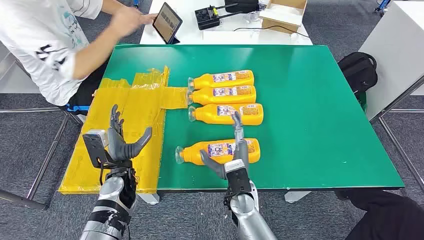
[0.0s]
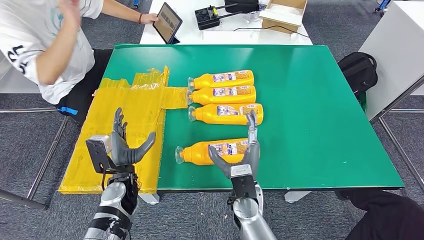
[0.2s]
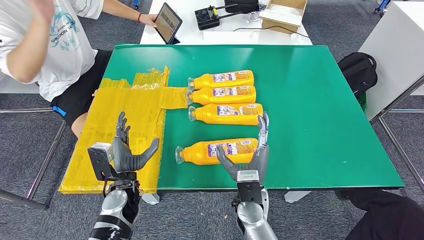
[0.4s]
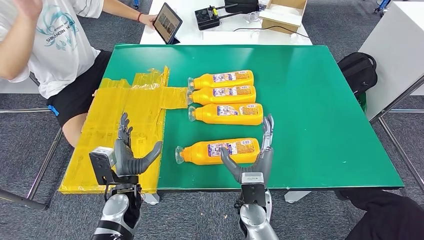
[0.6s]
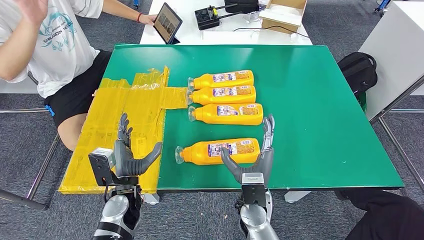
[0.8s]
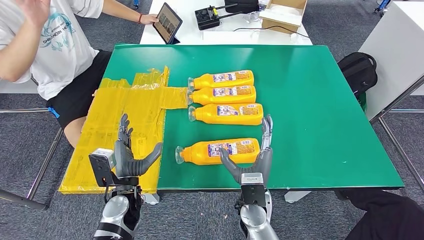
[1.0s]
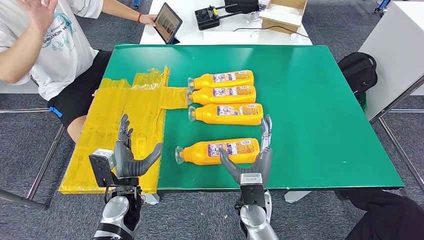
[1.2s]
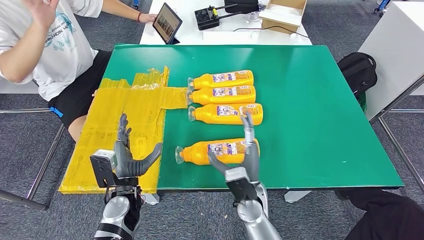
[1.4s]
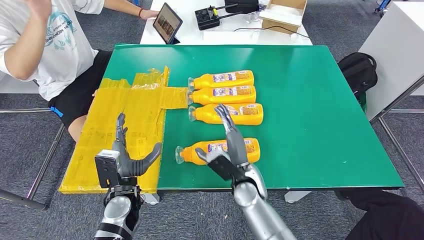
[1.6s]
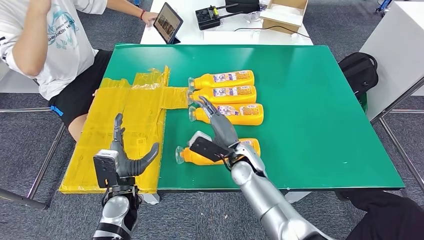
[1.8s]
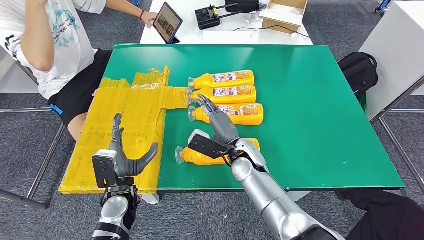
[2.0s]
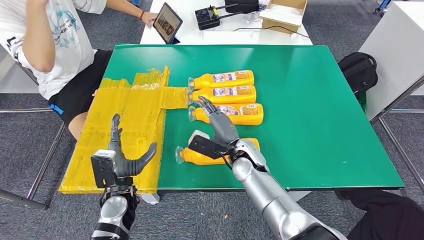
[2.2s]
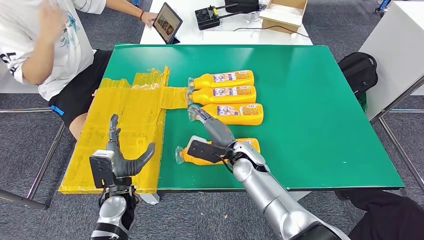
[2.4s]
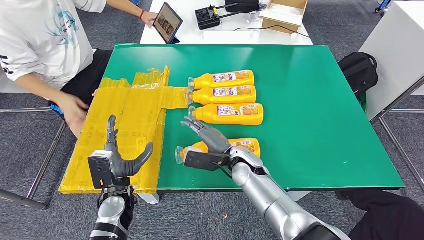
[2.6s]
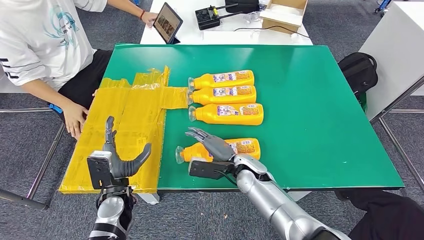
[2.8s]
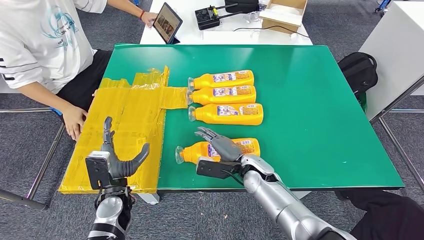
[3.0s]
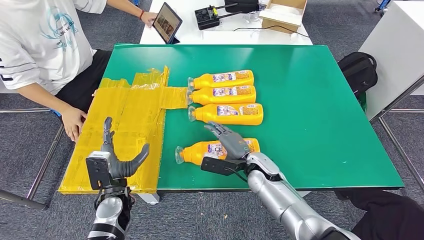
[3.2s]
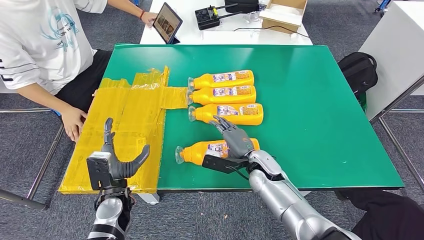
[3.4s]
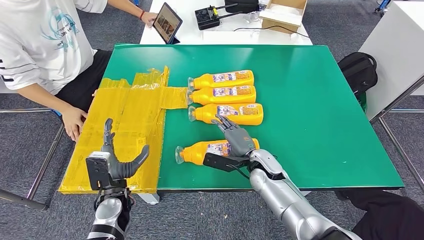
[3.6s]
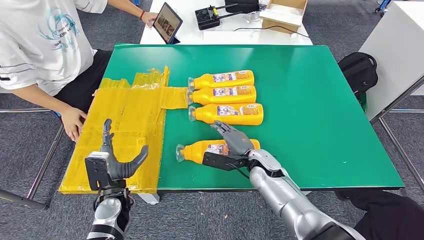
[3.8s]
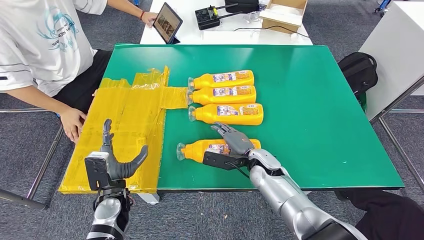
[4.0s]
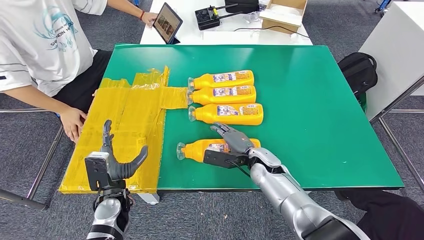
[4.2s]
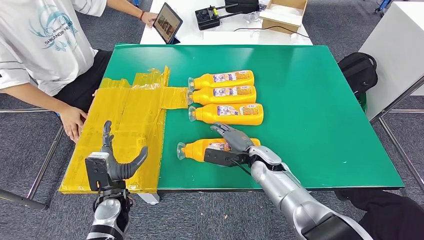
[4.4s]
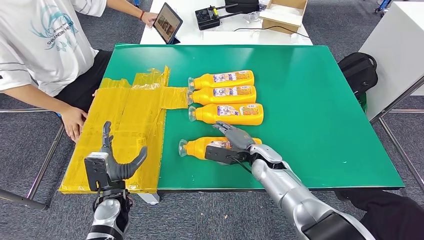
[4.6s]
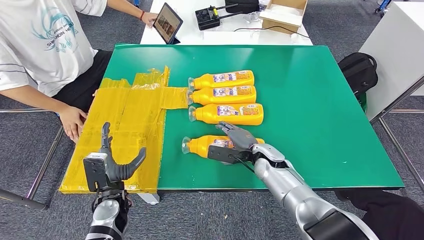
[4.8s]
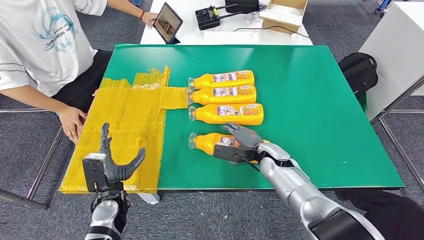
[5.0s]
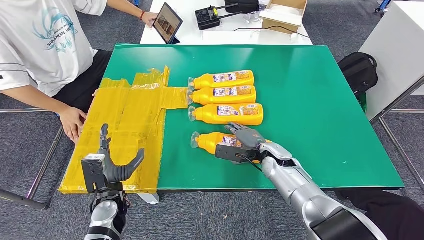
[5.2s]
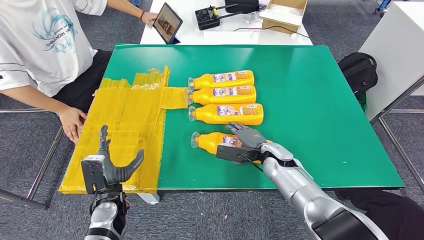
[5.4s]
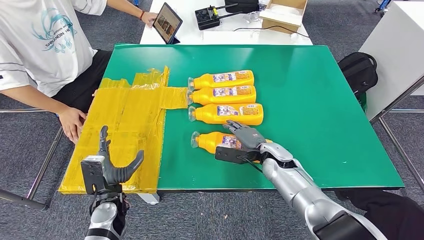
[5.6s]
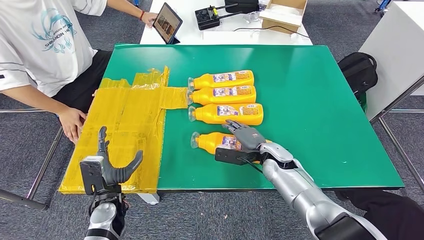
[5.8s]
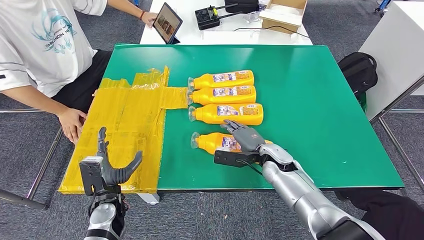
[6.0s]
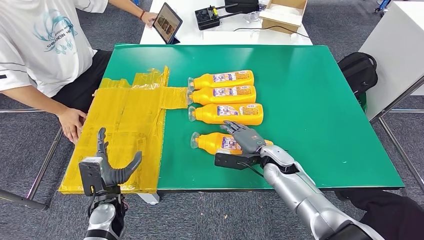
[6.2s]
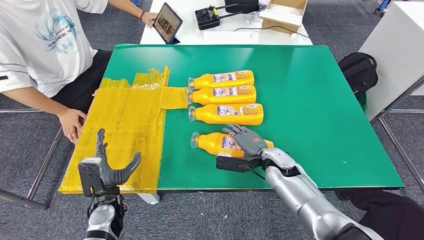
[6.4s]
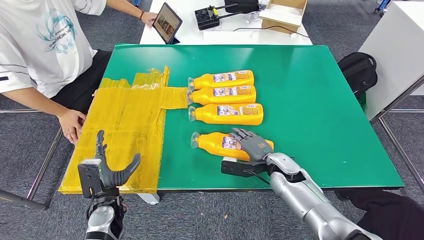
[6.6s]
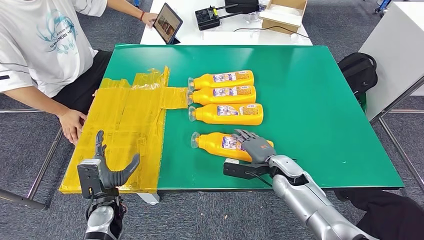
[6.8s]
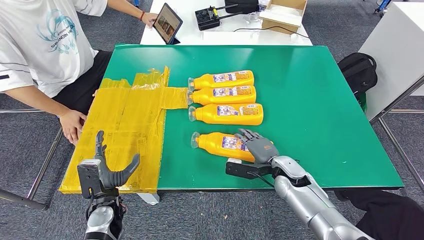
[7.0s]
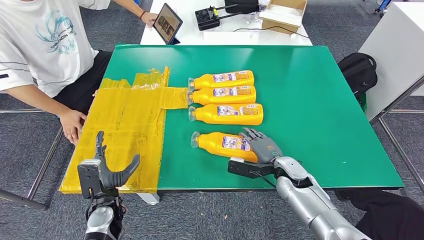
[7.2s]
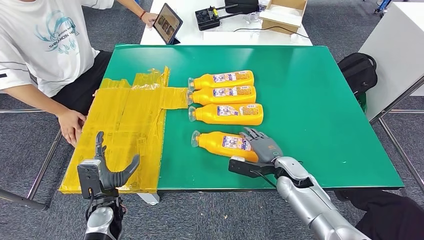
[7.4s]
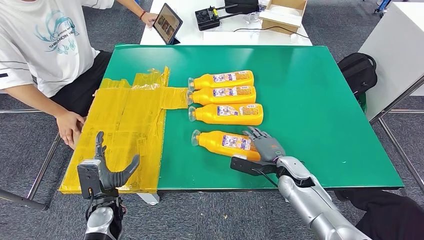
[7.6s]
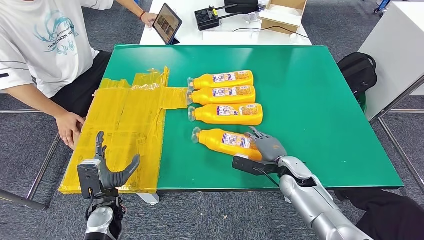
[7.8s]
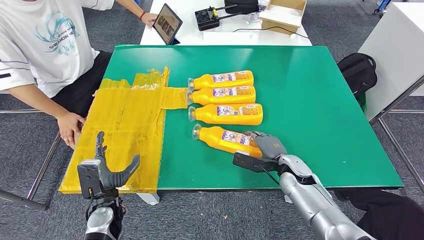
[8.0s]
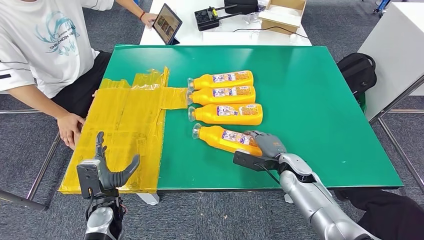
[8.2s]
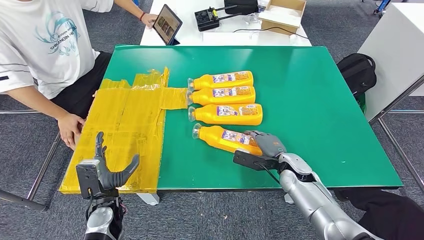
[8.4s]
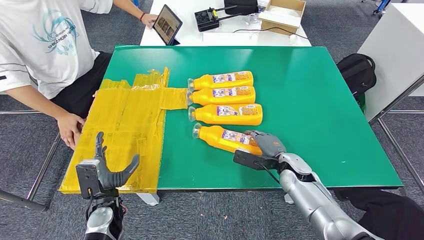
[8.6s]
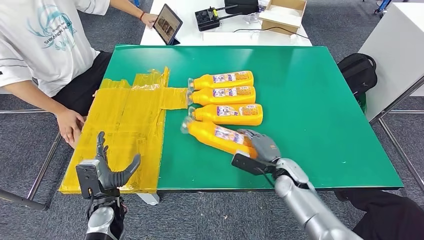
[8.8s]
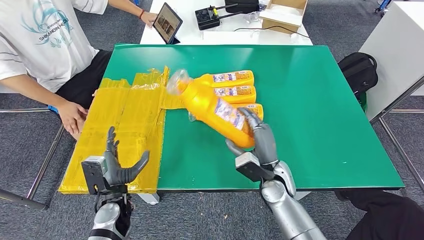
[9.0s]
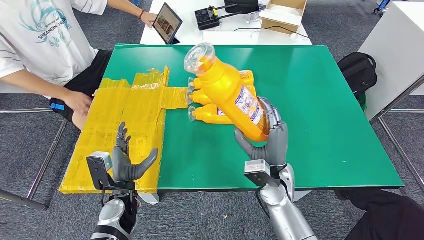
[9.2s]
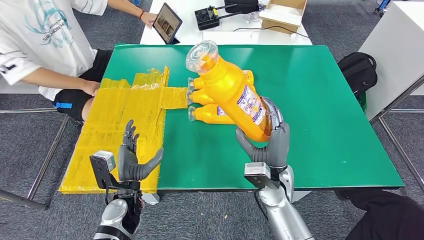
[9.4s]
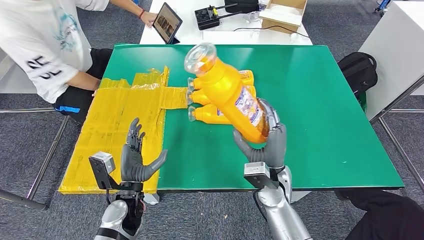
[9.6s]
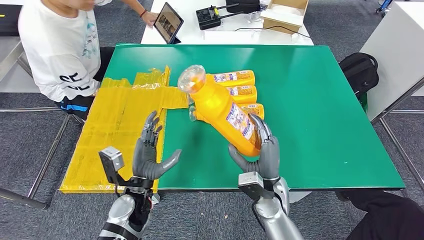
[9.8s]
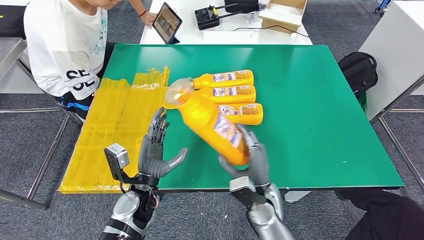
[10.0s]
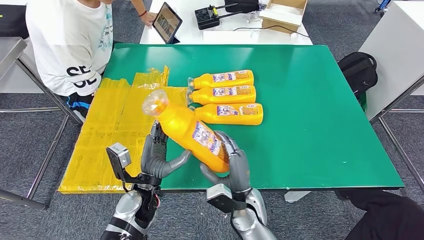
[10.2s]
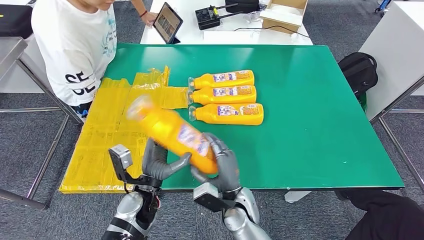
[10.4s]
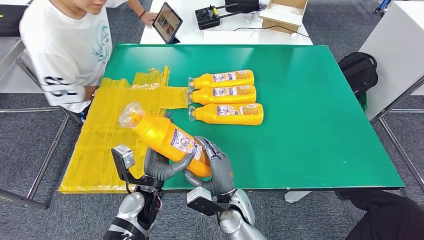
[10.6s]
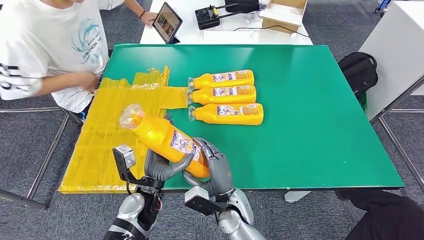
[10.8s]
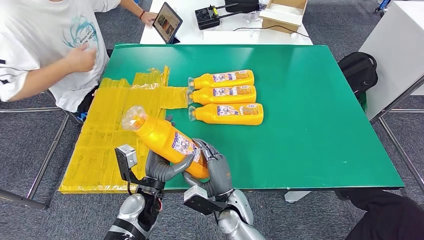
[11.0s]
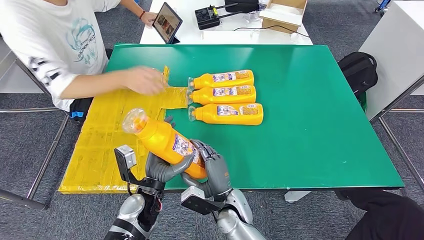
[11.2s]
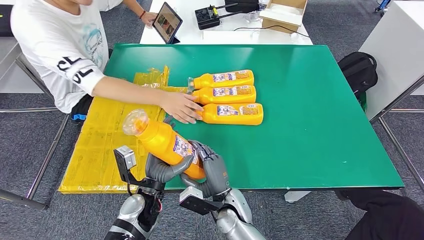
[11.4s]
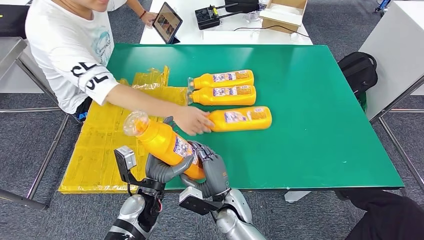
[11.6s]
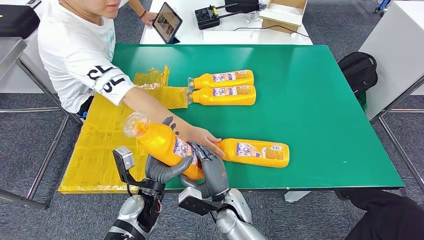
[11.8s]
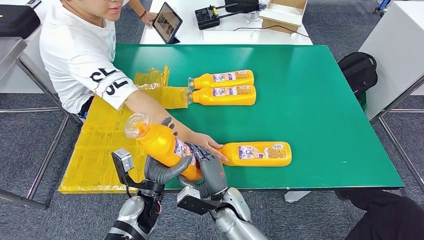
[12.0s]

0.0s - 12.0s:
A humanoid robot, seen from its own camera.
Step, 0.0s - 9.0s: Take the fast-moving consumer goods bottle from the table.
1.6s - 3.0s: The right hand changes place by roughly 5 cm.
3.0s - 4.4s: The hands move only a little.
4.4s - 6.0s: The hands make only small movements.
6.0s - 7.6s: The right hand changes place by approximately 5 cm.
7.6s - 9.0s: The right hand travels to the left by about 5 cm.
10.4s - 12.0s: The hands move only a little.

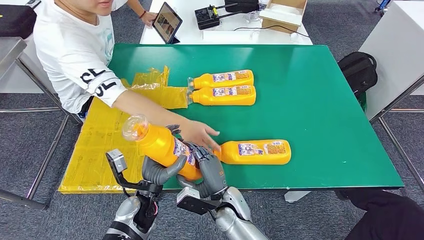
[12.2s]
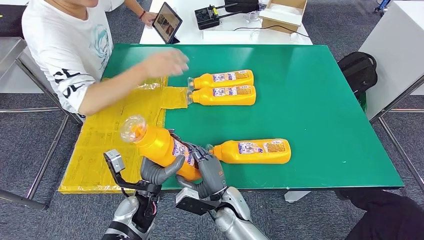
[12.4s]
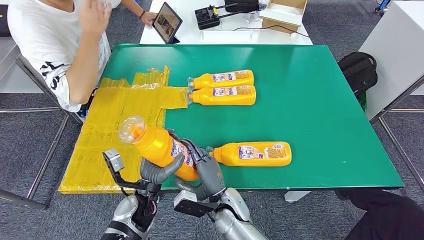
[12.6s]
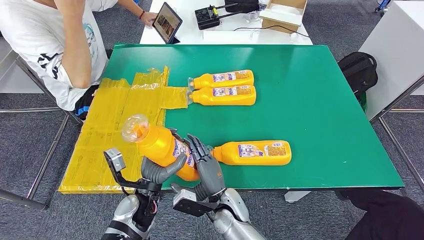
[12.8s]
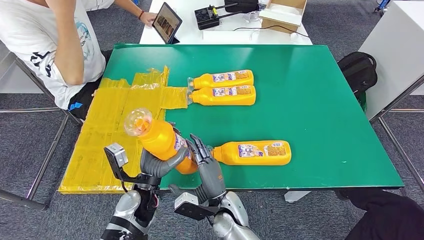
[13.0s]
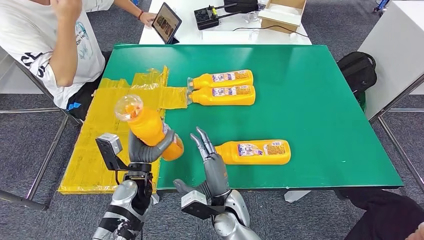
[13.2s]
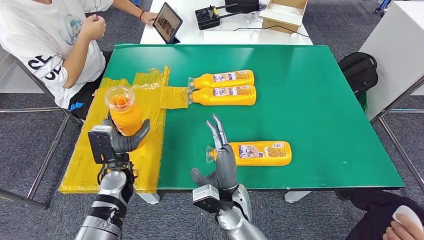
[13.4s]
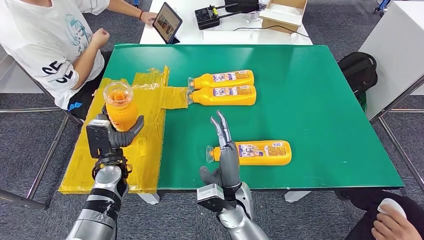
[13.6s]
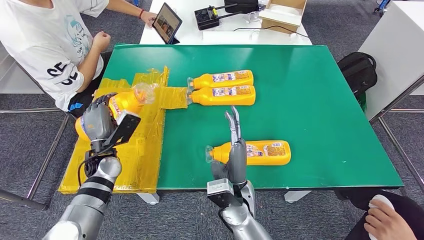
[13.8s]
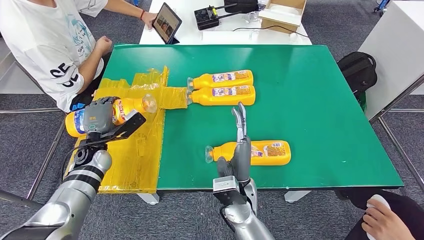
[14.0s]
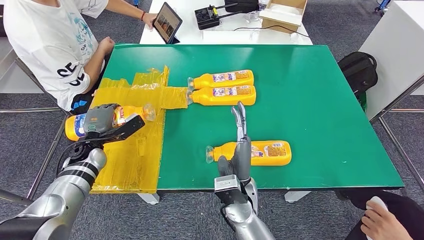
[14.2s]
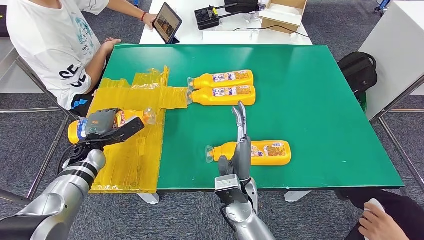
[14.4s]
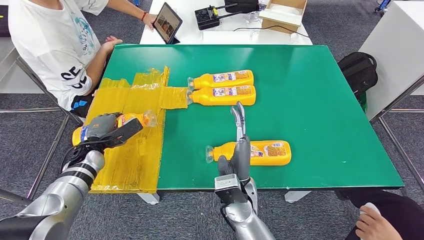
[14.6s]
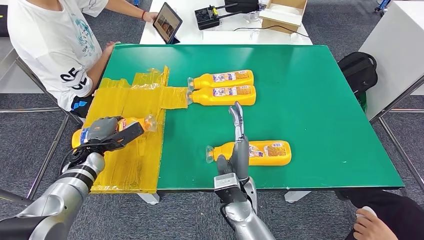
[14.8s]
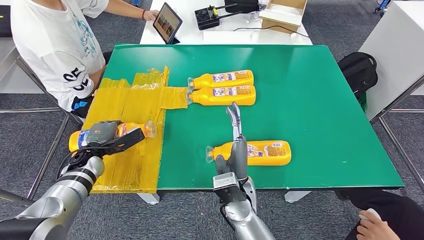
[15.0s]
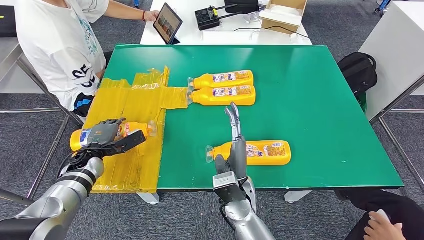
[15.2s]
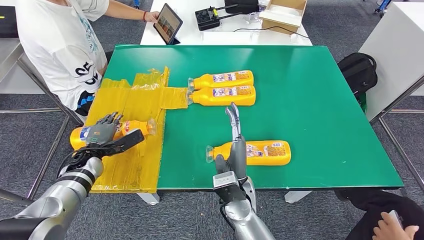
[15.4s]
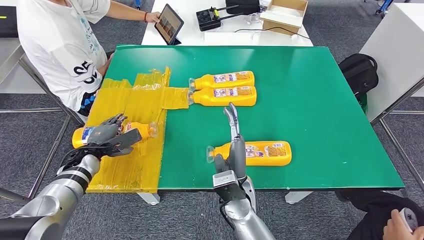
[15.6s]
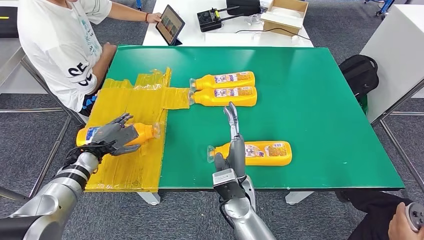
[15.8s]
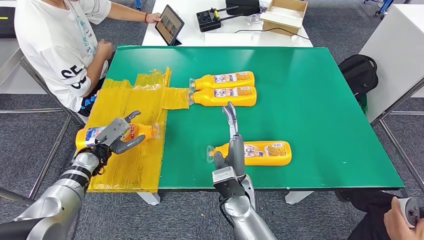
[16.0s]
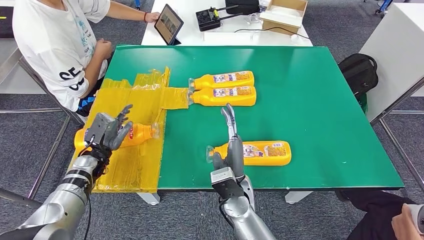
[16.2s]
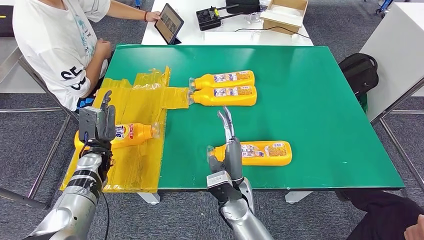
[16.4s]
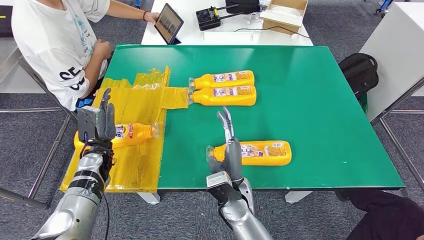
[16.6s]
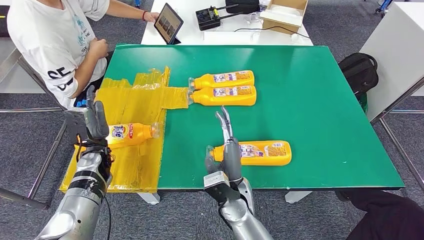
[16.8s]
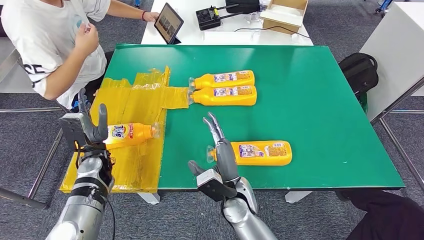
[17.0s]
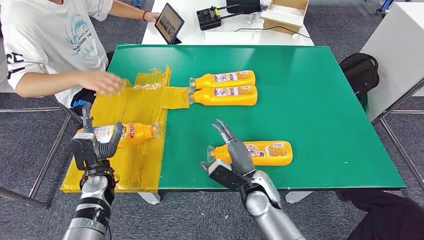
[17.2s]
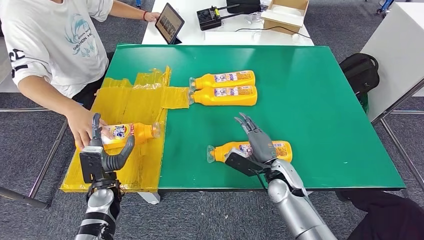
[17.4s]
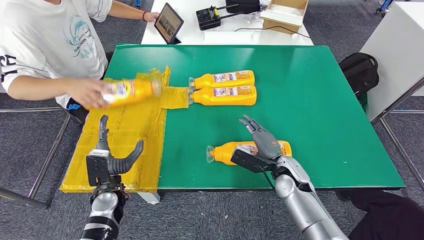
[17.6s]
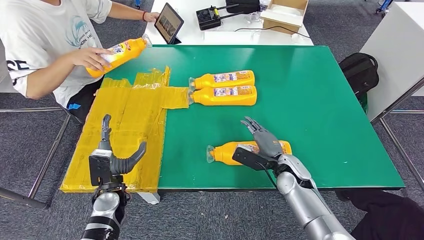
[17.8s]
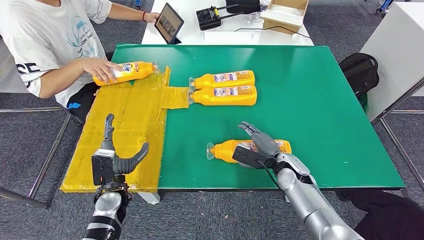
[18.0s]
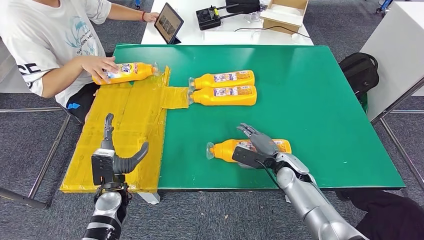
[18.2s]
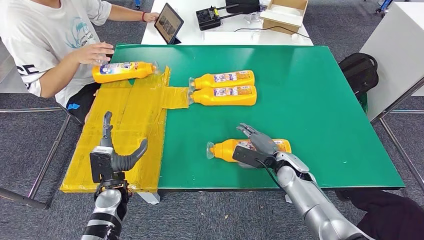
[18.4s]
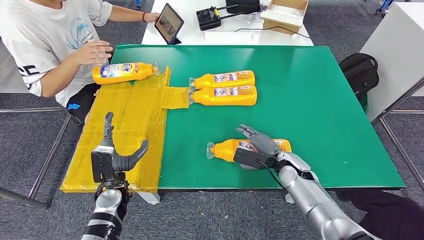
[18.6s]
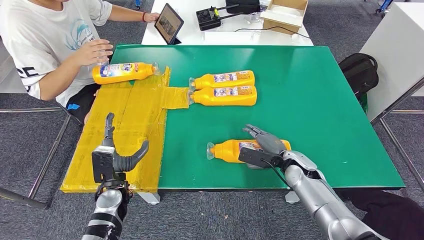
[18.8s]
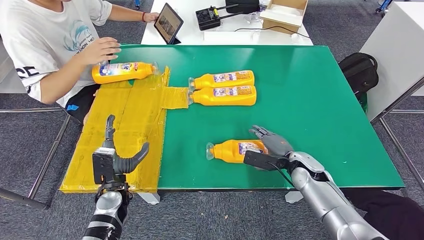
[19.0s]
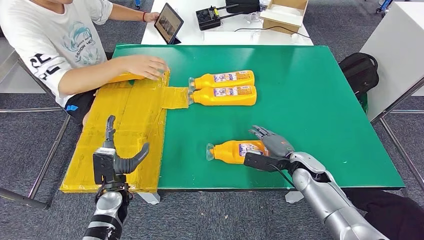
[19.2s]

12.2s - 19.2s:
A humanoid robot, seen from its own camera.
Step, 12.2s - 16.6s: Flip the fast-moving consumer goods bottle to the front side.
17.8s - 19.2s: There are only small adjustments of the hands.
